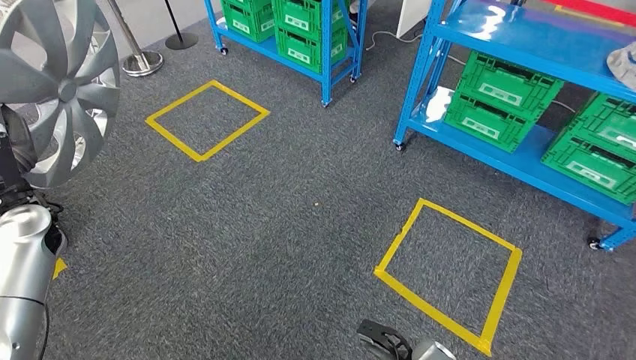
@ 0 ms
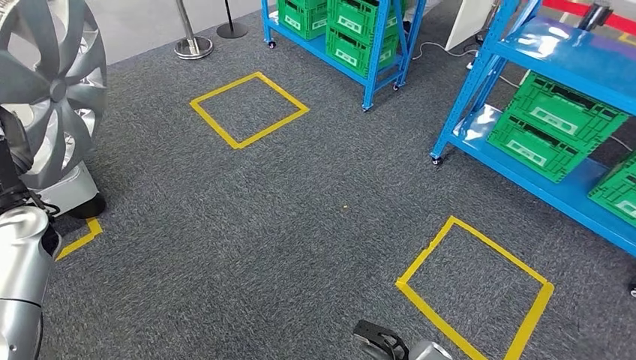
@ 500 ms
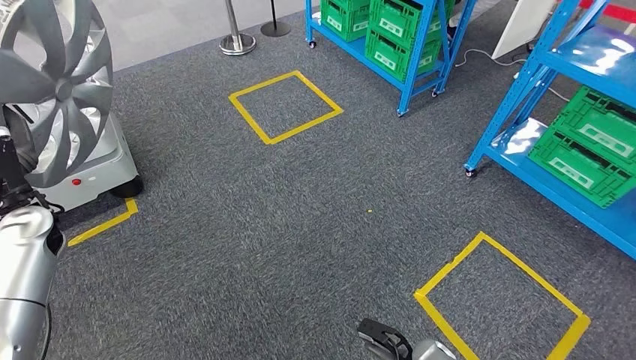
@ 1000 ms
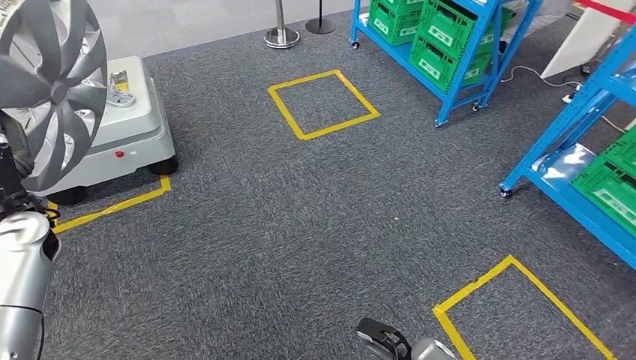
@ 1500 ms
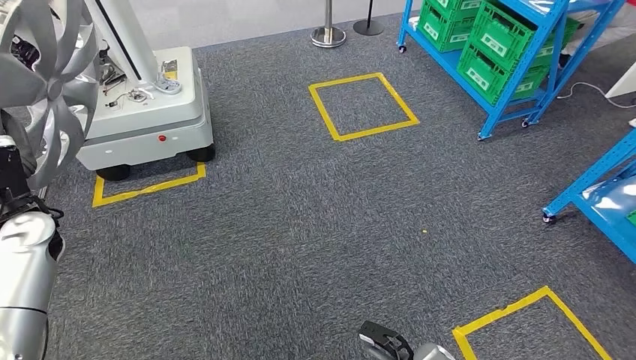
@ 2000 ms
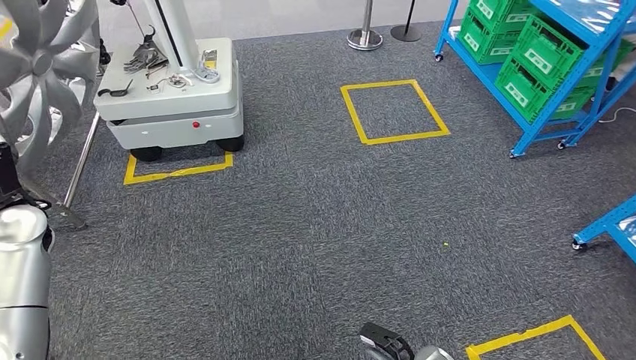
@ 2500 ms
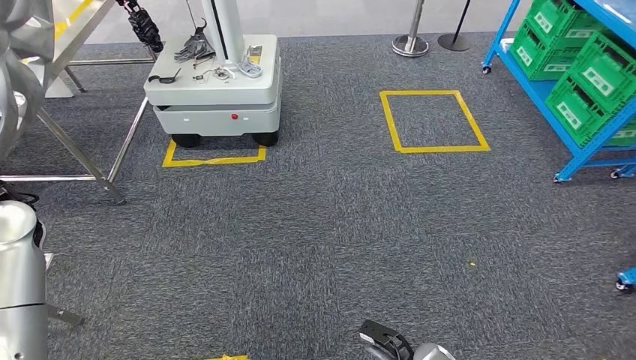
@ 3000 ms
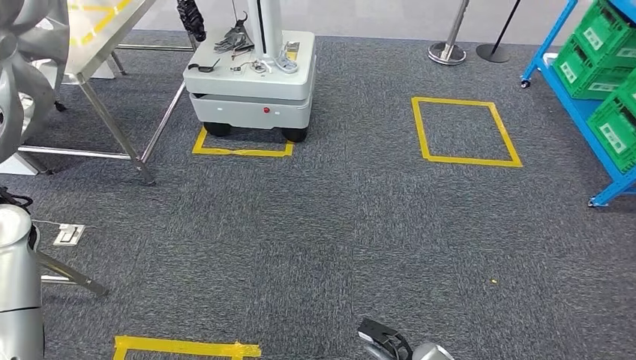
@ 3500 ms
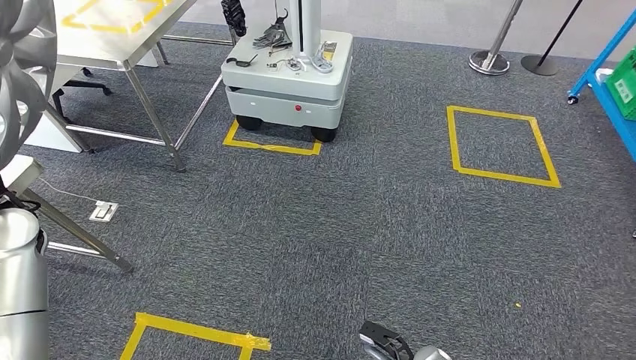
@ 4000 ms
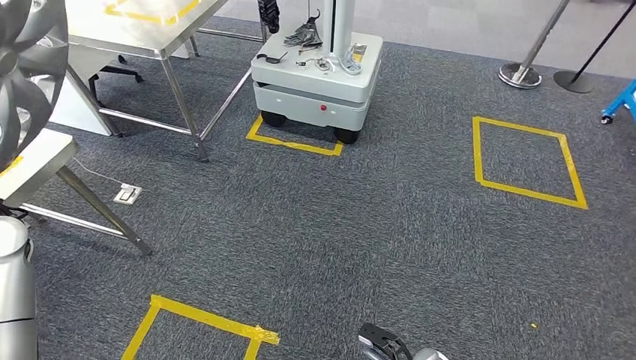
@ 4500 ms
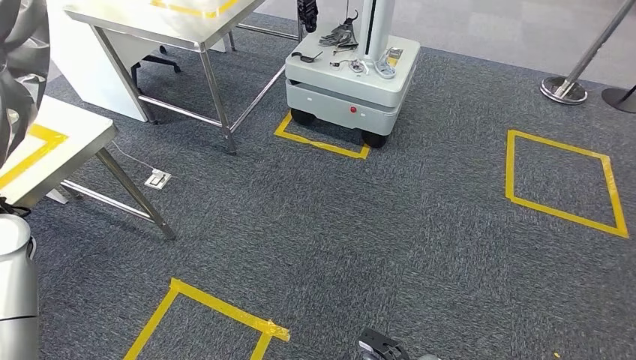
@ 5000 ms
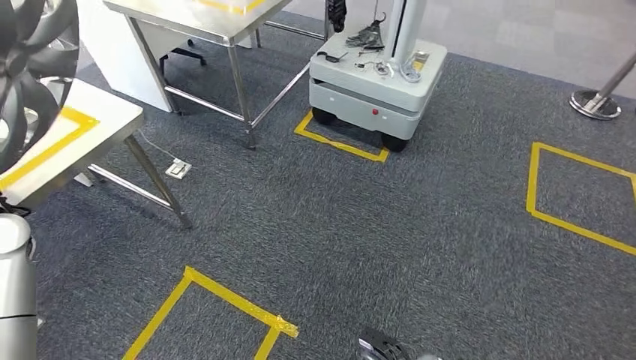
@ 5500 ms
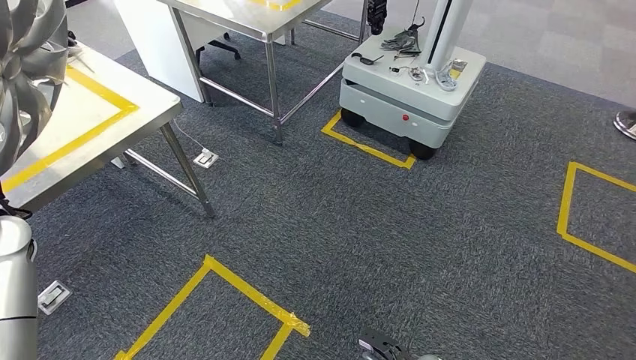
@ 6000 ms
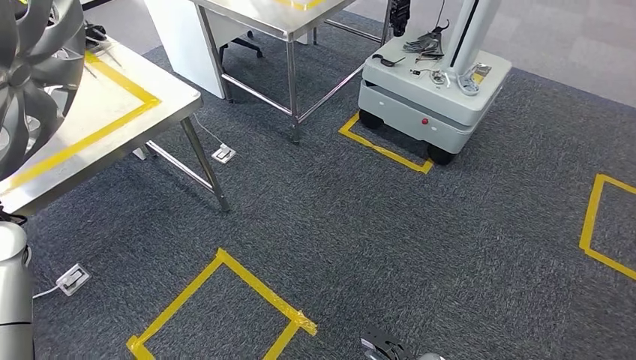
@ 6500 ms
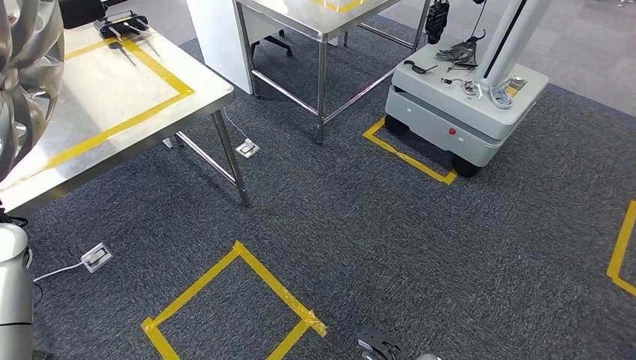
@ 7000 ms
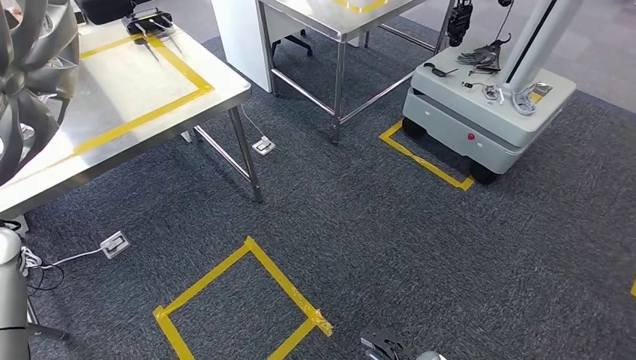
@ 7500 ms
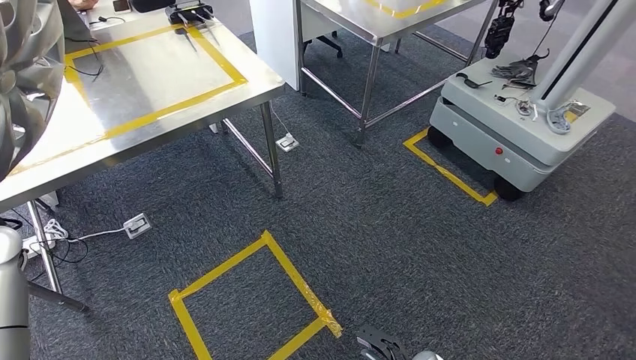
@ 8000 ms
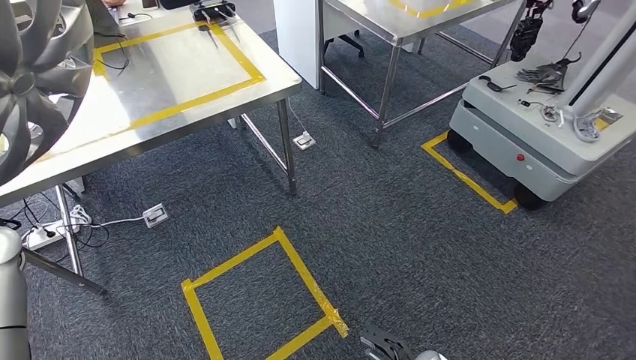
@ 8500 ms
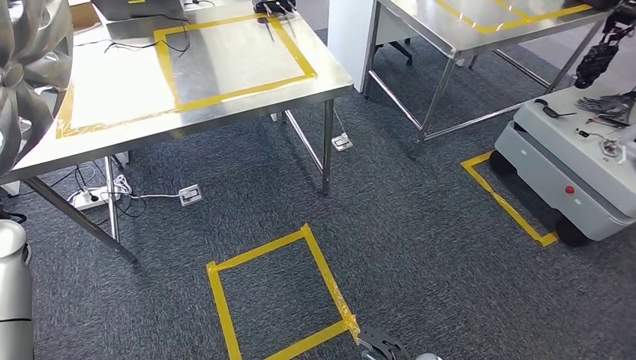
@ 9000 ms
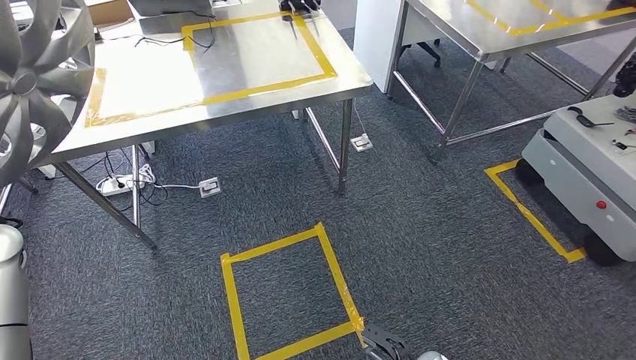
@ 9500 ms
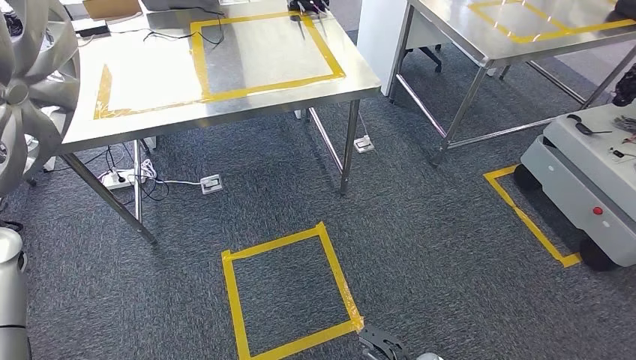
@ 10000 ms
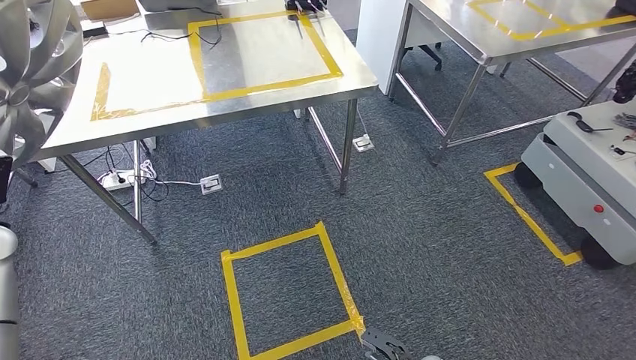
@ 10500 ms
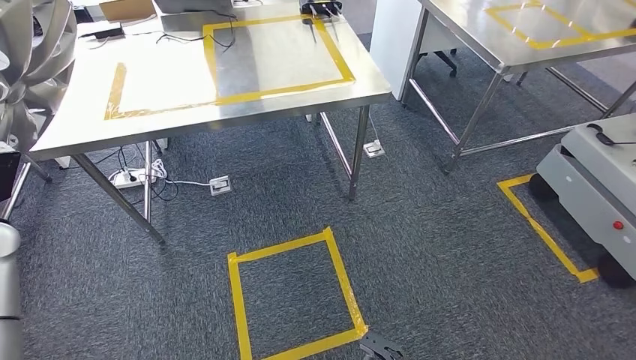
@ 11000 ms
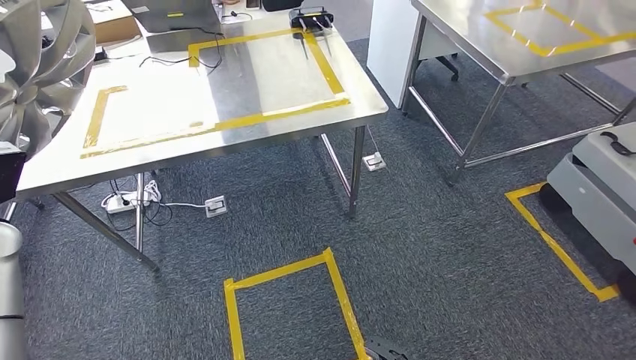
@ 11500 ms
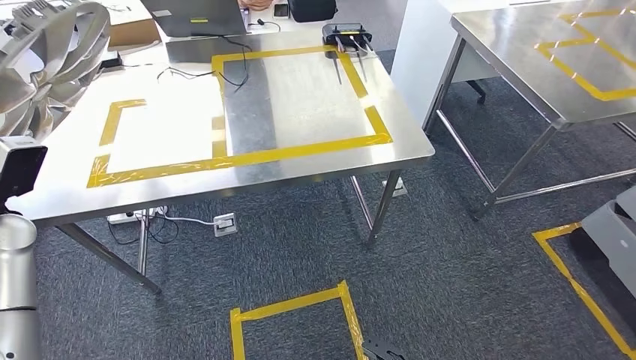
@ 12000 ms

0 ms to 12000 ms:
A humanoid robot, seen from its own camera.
Step, 0 ms to 9000 ms: Bring the small component to the front of the workbench.

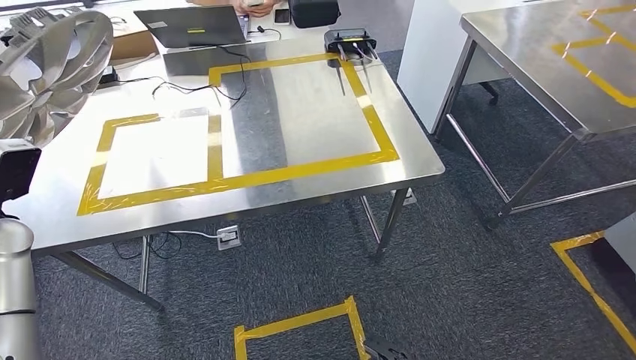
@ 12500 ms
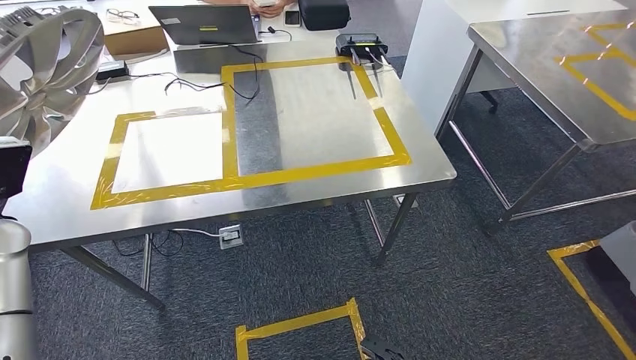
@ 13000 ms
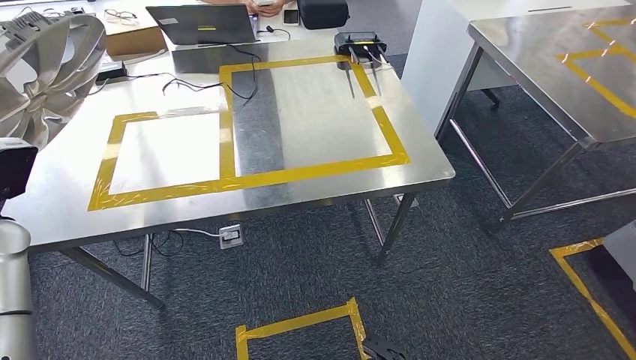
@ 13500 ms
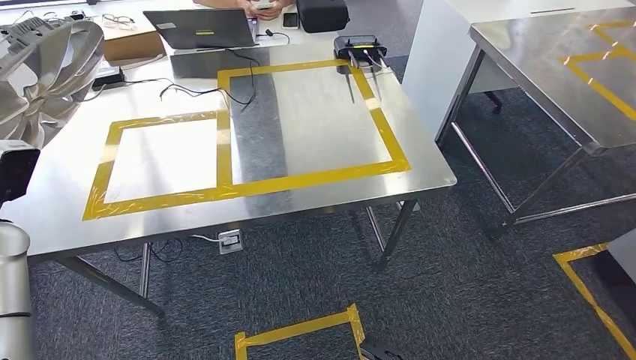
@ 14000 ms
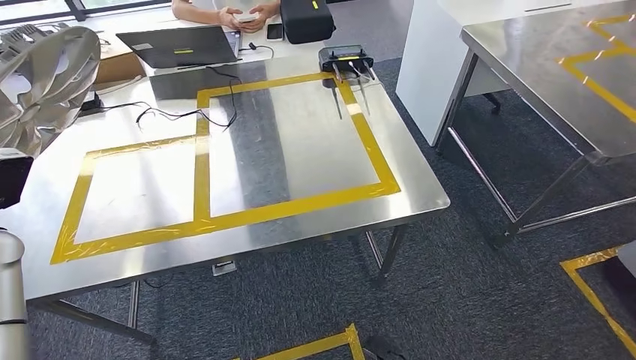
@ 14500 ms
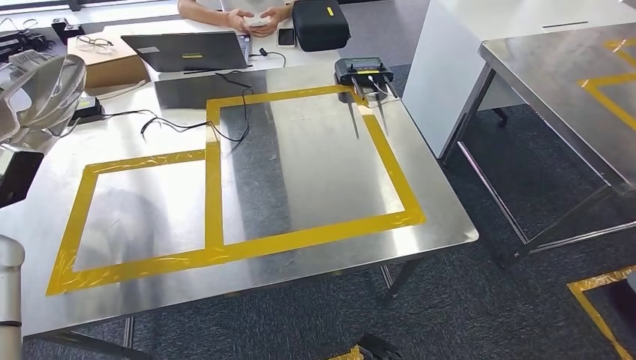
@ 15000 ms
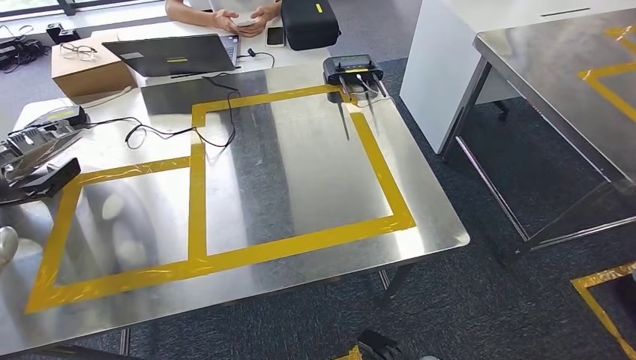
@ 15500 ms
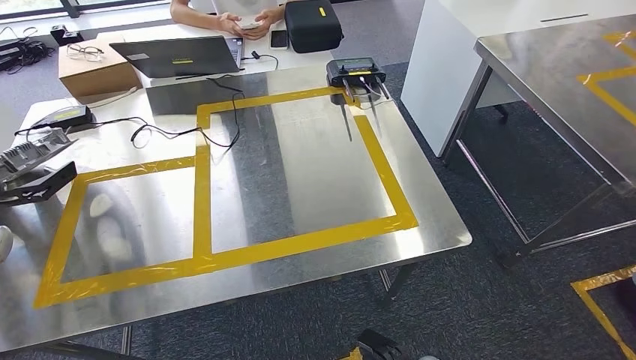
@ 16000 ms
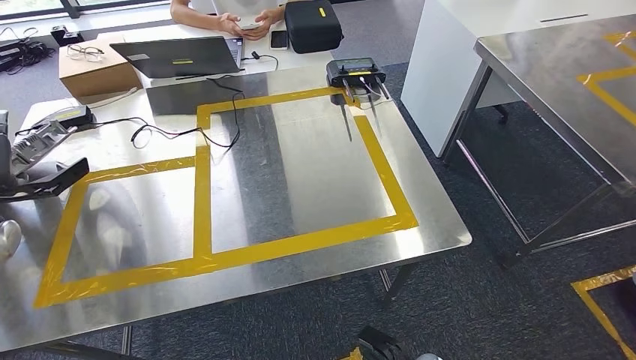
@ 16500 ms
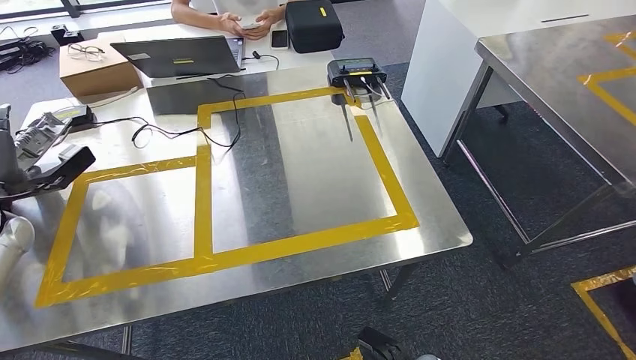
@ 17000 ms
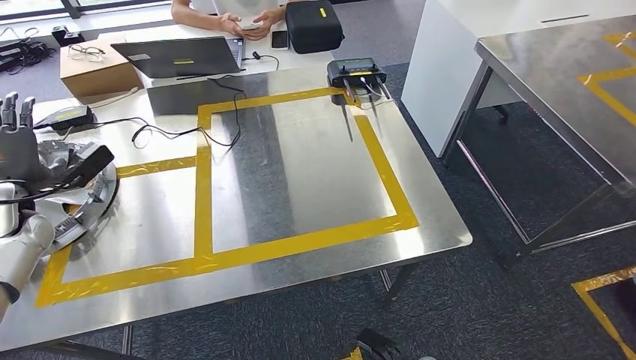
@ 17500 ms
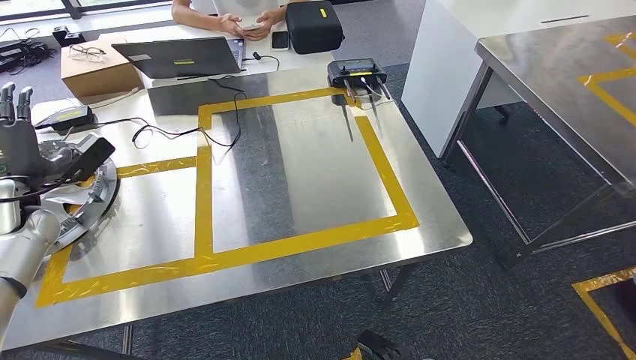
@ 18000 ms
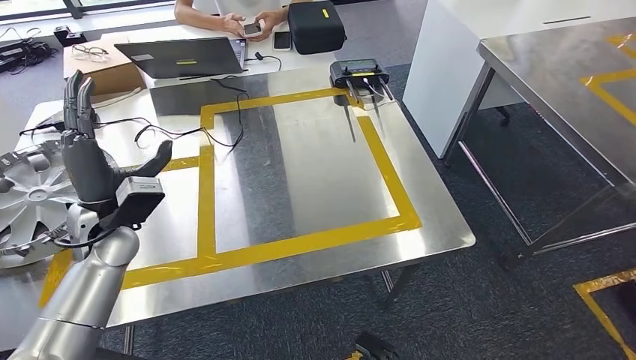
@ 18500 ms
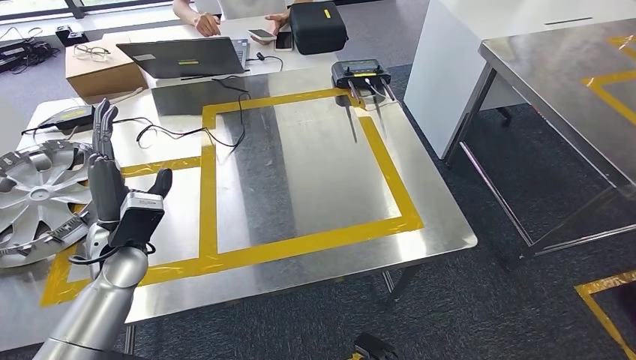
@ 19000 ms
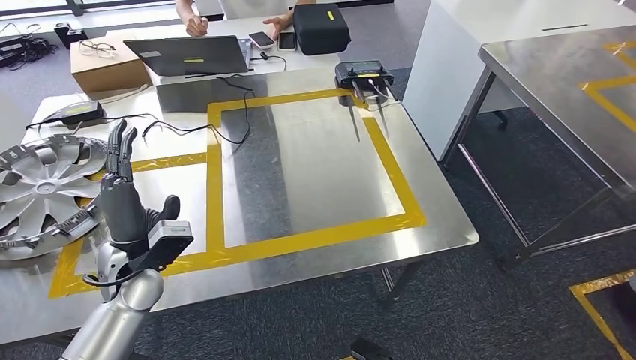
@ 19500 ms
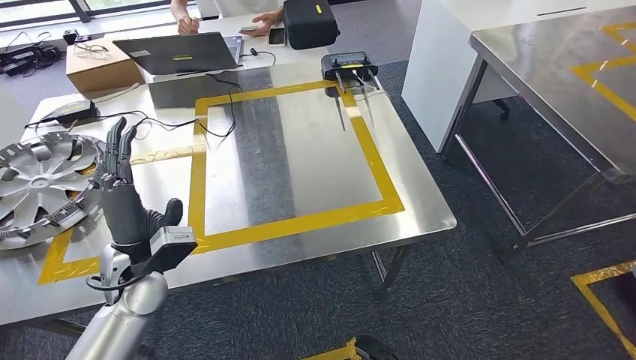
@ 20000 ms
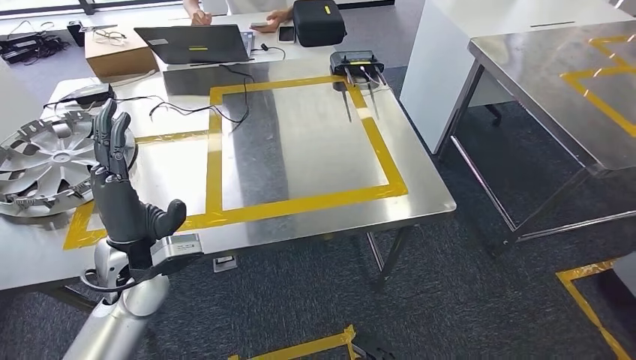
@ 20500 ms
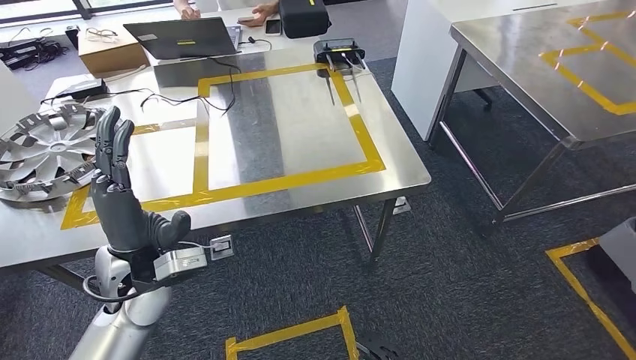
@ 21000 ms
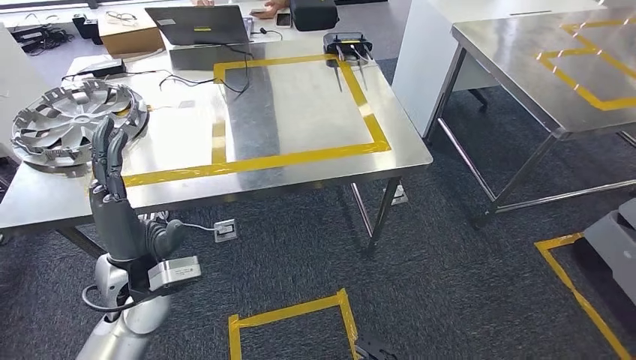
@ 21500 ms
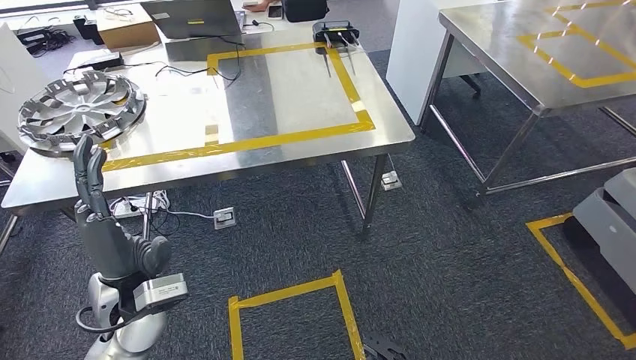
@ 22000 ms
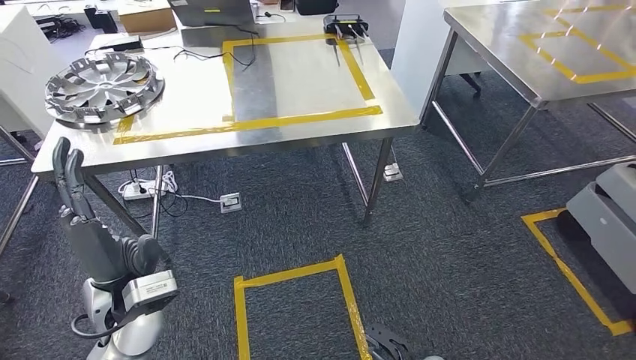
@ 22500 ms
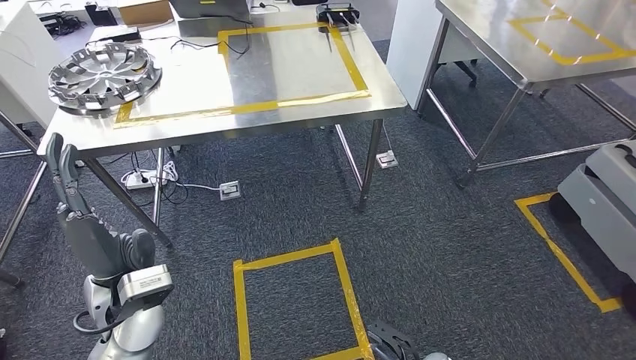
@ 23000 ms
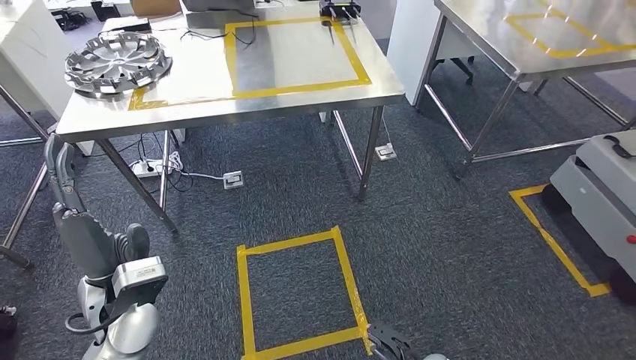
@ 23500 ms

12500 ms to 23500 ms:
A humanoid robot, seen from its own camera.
Step, 12500 ms to 19000 ms: Insert the small component into the corresponding slot on the workbench.
16000 ms to 18000 ms: The left hand shifts roughly 5 cm to the right.
